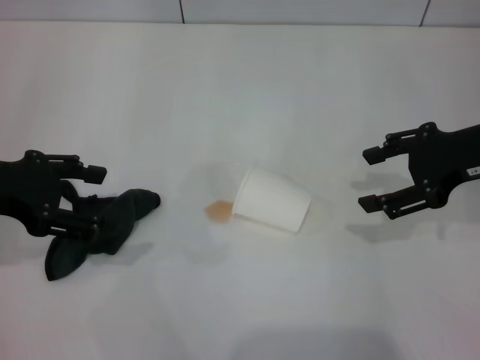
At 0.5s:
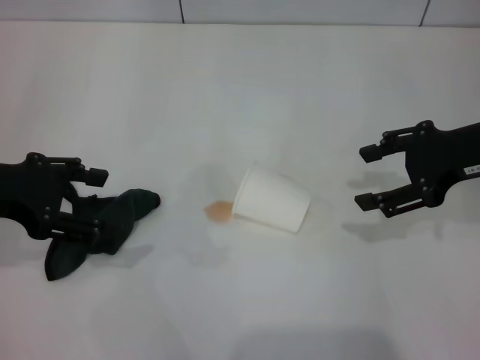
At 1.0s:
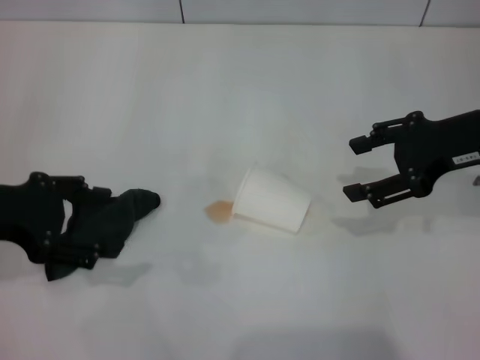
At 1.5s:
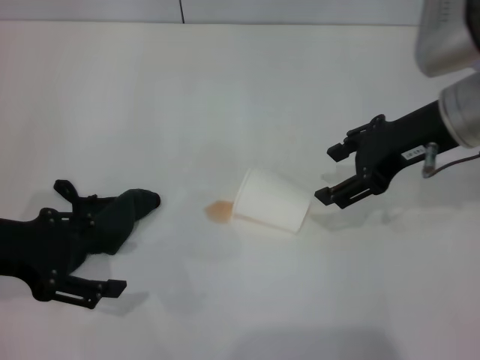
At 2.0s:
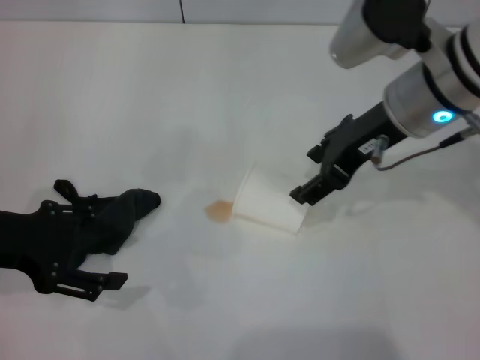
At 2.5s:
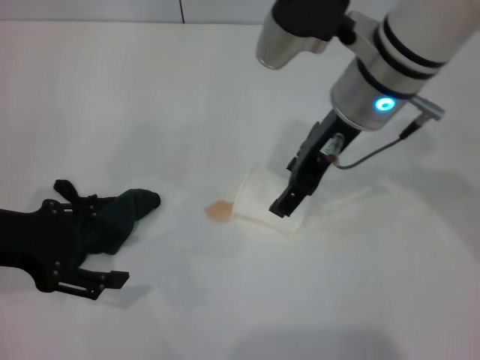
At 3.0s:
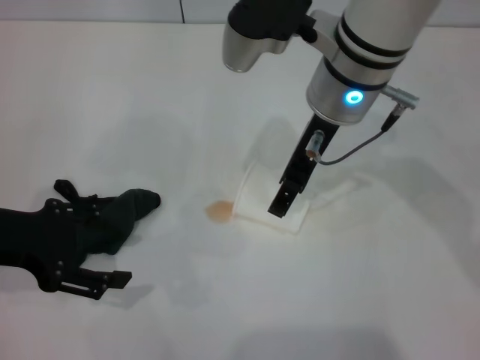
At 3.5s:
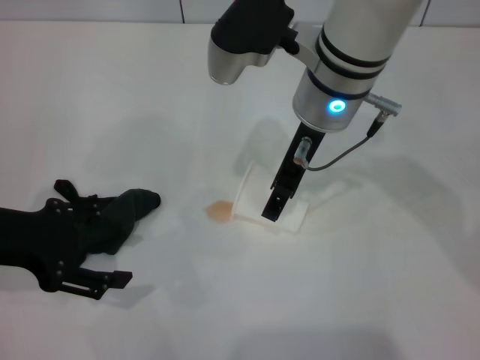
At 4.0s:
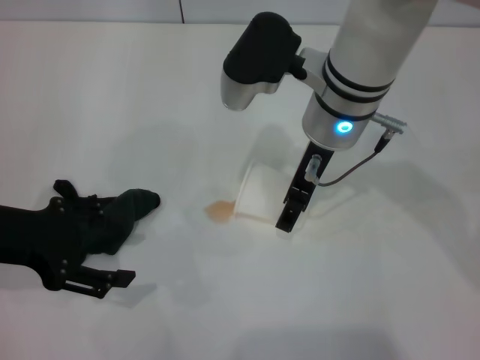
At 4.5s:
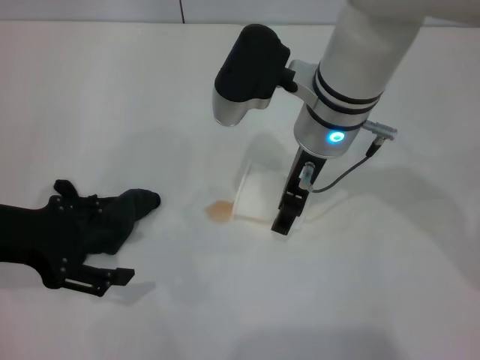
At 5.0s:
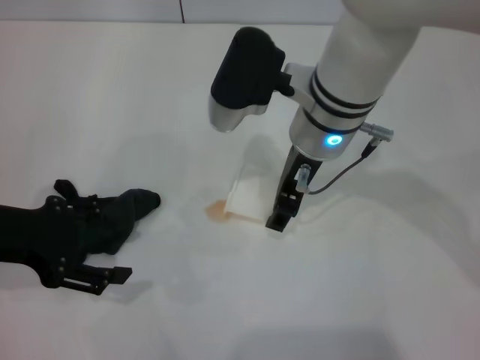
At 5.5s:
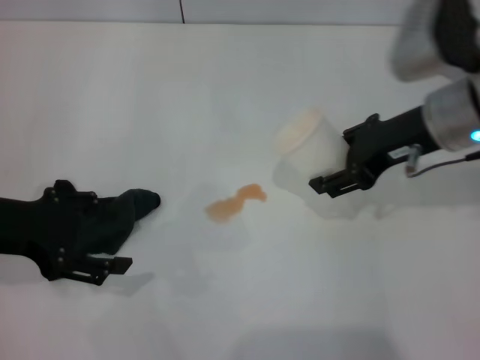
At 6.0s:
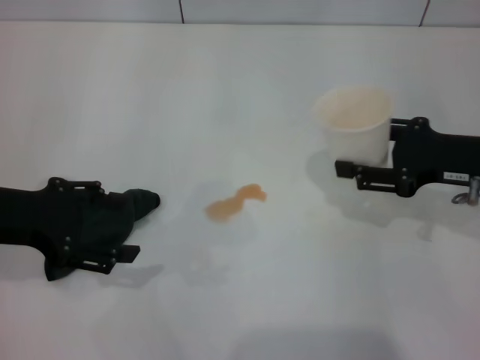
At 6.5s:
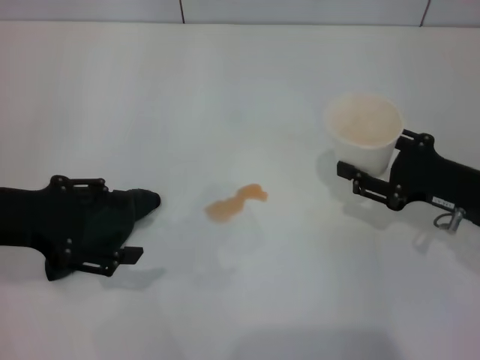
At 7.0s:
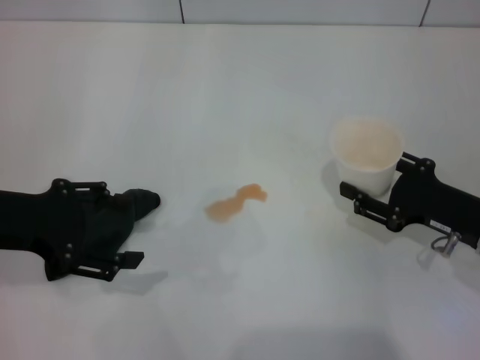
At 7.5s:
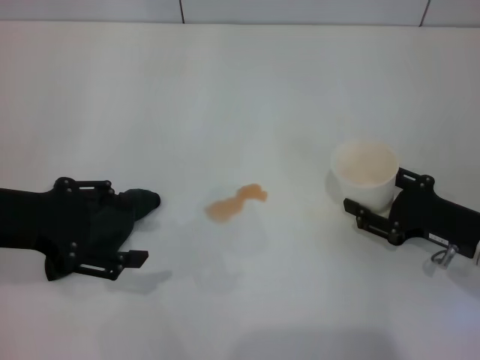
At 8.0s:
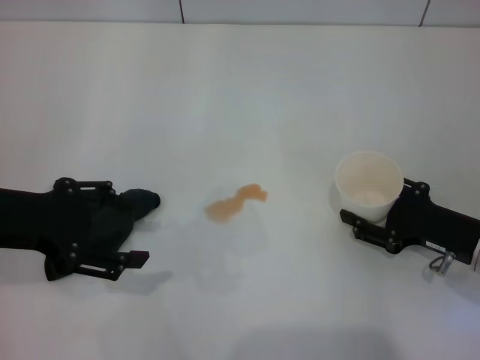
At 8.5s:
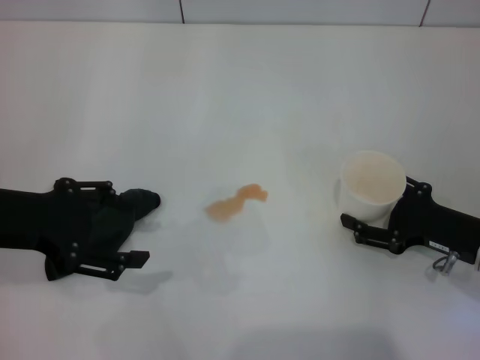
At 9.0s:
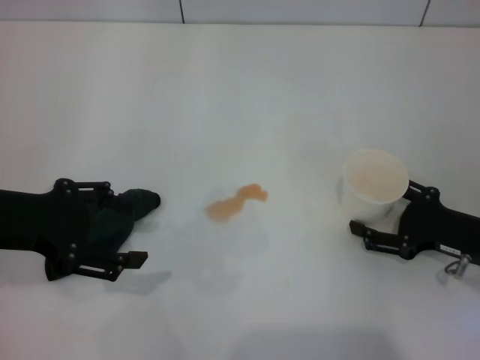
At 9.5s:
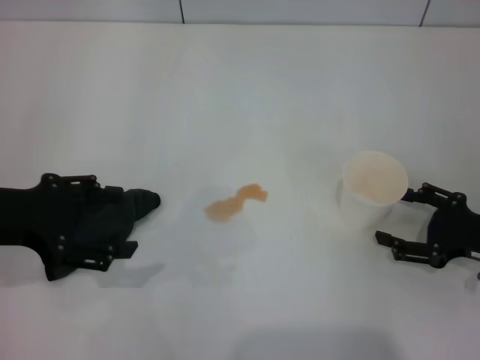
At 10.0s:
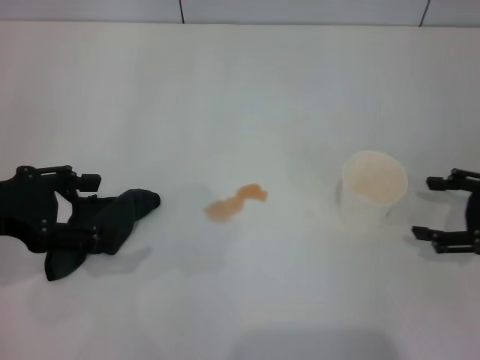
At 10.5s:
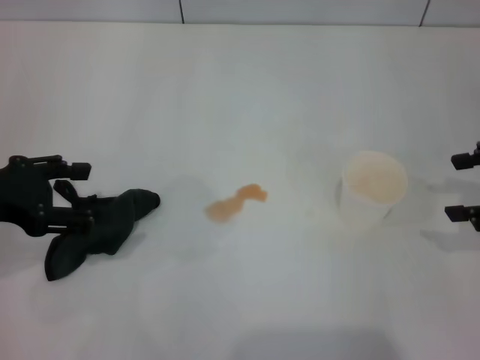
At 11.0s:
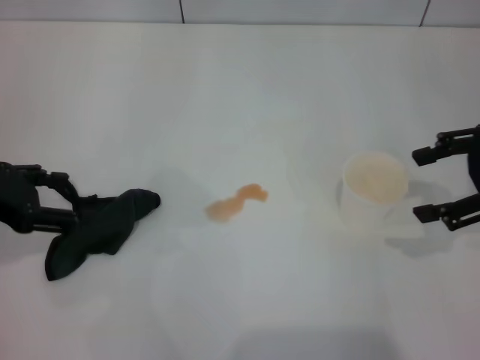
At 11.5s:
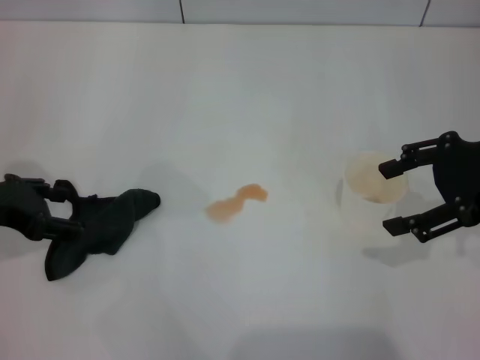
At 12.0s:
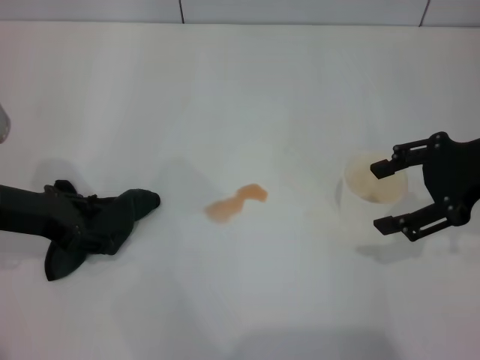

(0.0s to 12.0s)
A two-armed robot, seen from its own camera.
Step, 0.0s - 4.5s: Grasp the paper cup with the right gripper.
Step, 5.0s - 9.0s: Stand the paper cup upright with the right gripper.
0.0s - 2.0s: The right gripper travels to the left by some 10 cm.
2.0s - 4.0s: The right gripper shifts roughly 10 cm to the left.
4.0s - 6.0s: The right gripper heads to the right, covering roughly 20 cm, and closes.
6.0s - 8.0s: The right gripper heads downward, covering roughly 10 cm.
8.0s - 10.0s: The right gripper moves upward and to the right, approximately 10 cm, and opens up.
10.0s - 12.0s: The left gripper shifts by about 5 cm. The right gripper moves upward and to the left, about 15 cm.

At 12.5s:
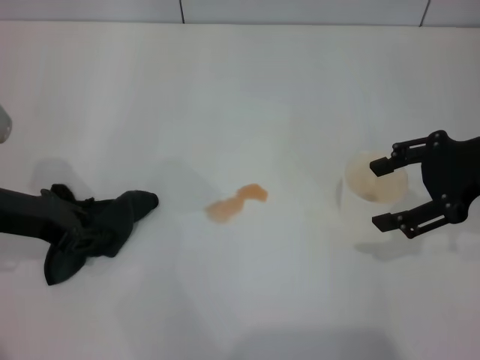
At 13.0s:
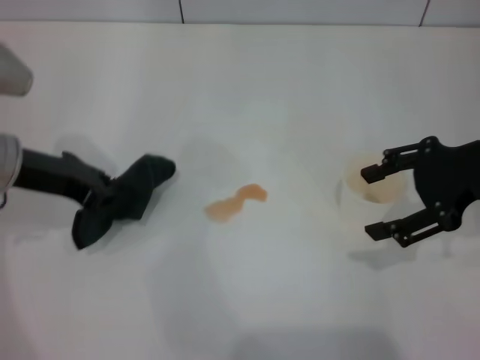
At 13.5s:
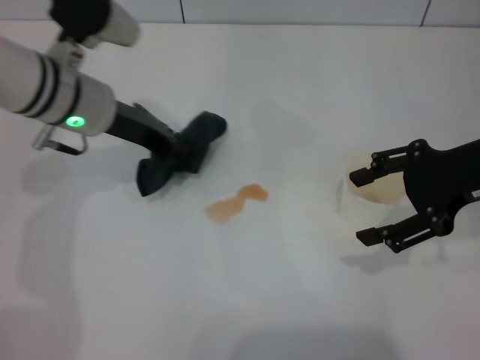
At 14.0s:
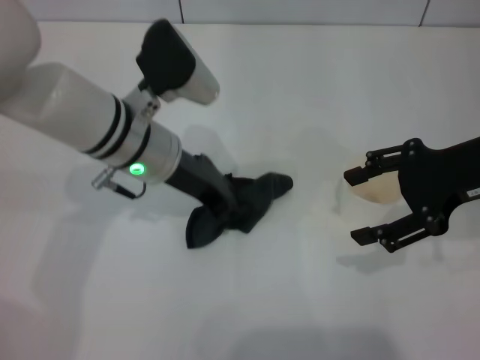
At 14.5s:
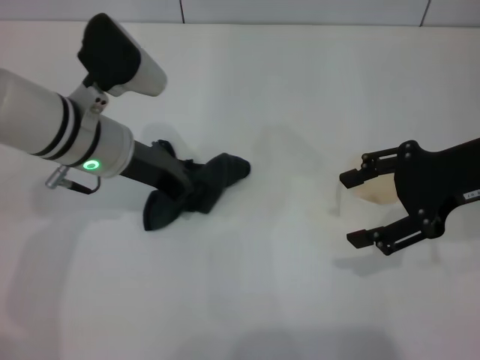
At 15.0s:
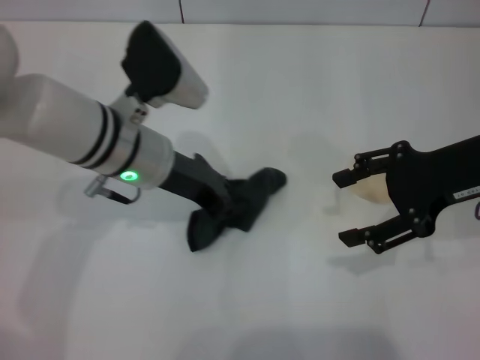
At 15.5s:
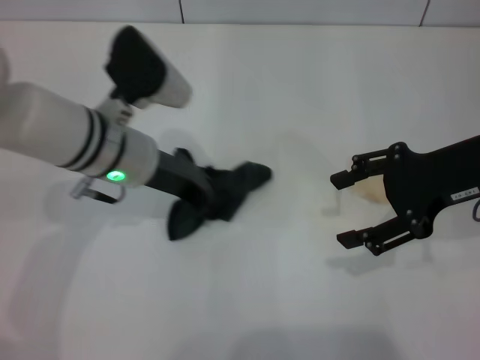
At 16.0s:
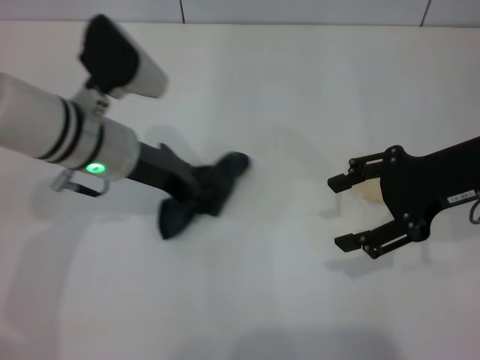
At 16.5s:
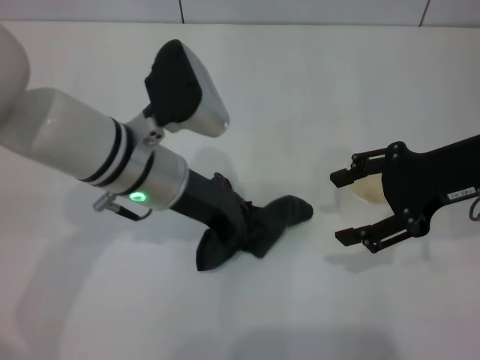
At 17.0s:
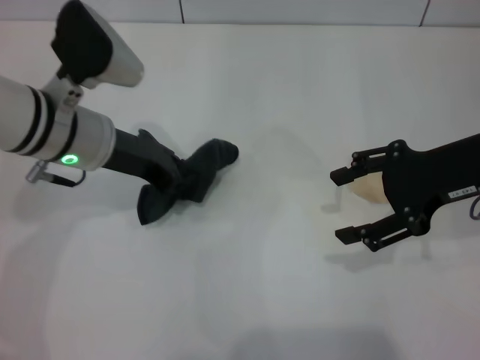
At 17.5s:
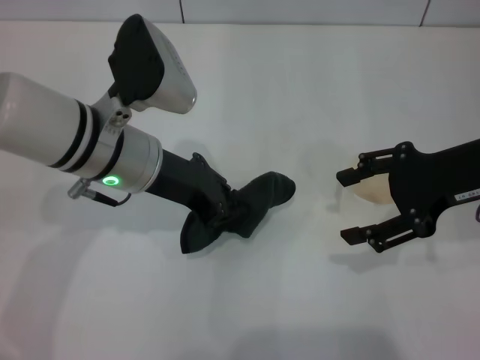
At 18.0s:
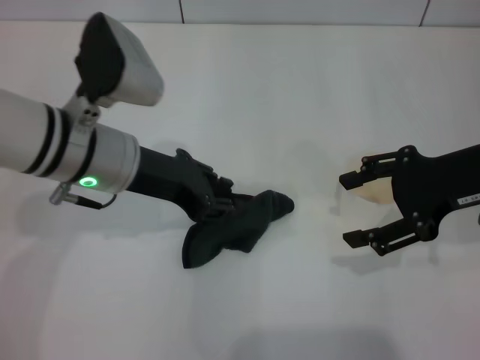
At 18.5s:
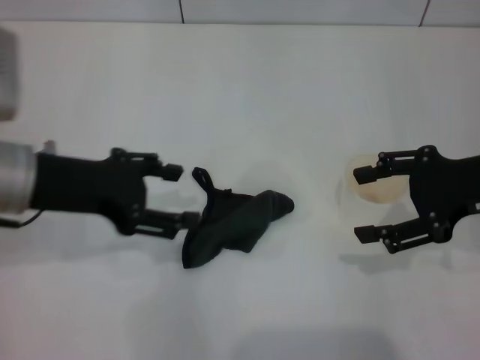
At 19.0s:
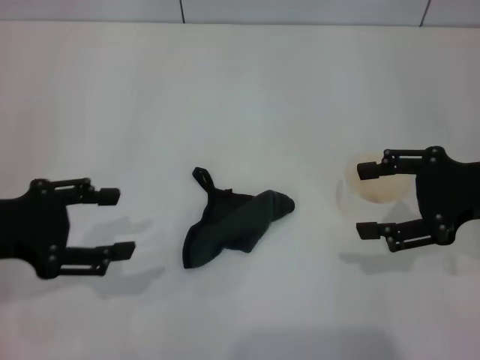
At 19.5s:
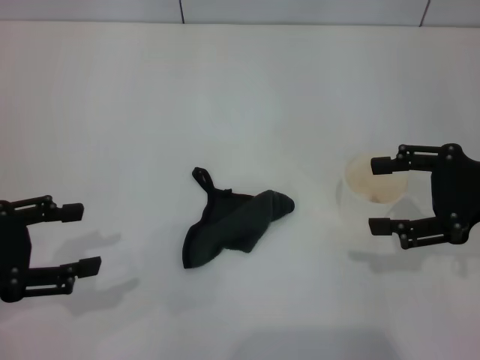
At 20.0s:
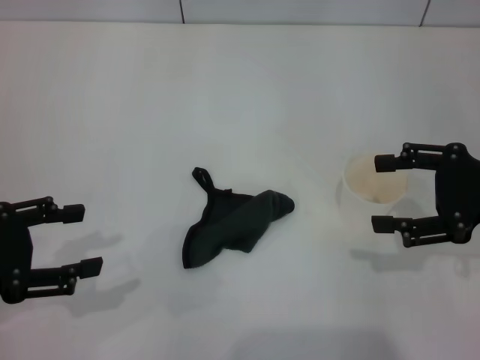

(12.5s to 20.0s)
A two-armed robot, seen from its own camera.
Step, 13.0s - 17.0s: Wipe the stains off the table with the left gripper.
Step, 17.5s - 18.0s: Place the rag on the table with the left gripper.
12.5s - 14.5s: The left gripper goes approximately 15 cm to the right and forward, and closes up.
14.5s - 16.5s: The left gripper ends up roughly 5 cm from where it was.
18.0s - 20.0s: The right gripper ends up some 5 cm from where it was. Meanwhile the left gripper heads to the left and backward, covering about 20 cm, and opens its fingers.

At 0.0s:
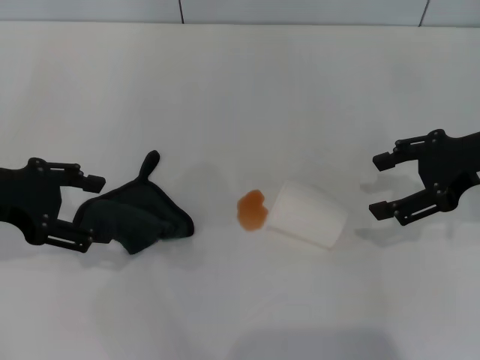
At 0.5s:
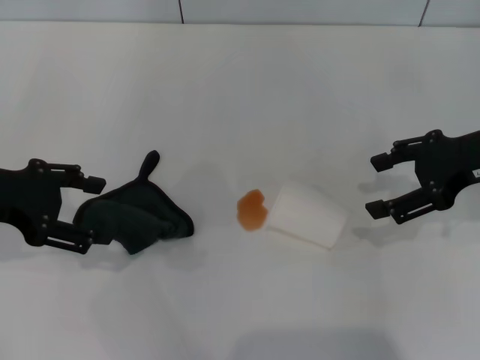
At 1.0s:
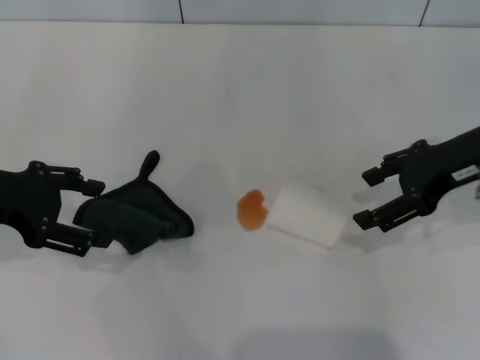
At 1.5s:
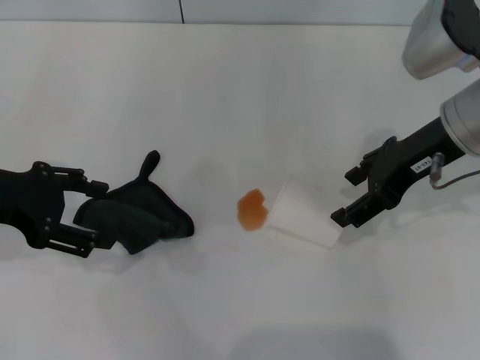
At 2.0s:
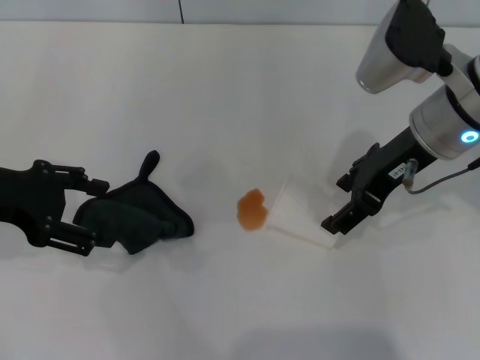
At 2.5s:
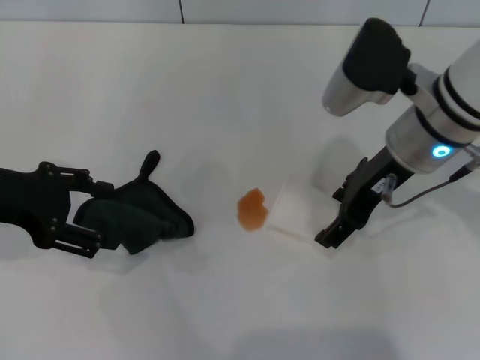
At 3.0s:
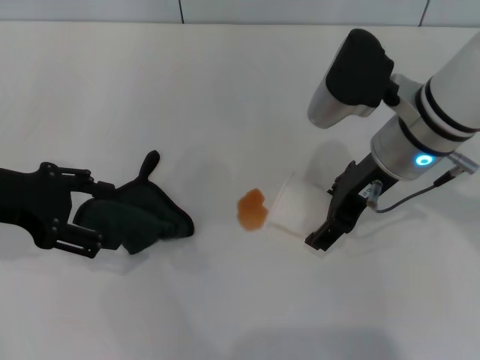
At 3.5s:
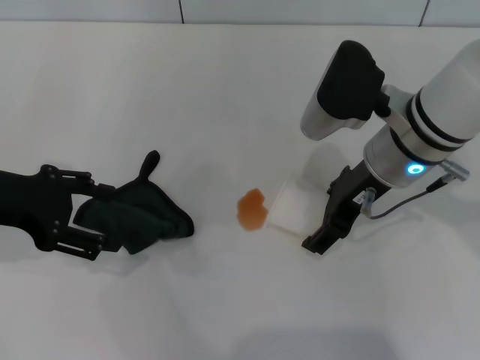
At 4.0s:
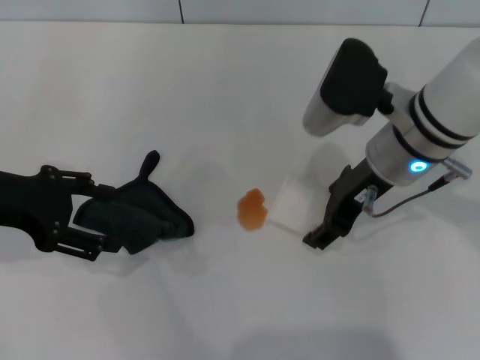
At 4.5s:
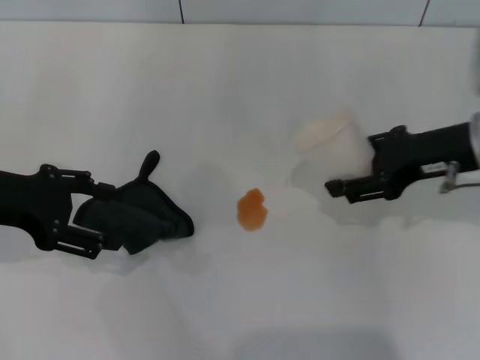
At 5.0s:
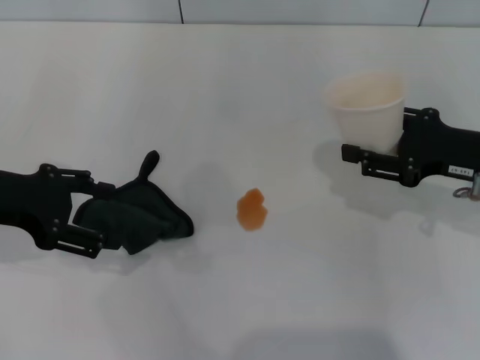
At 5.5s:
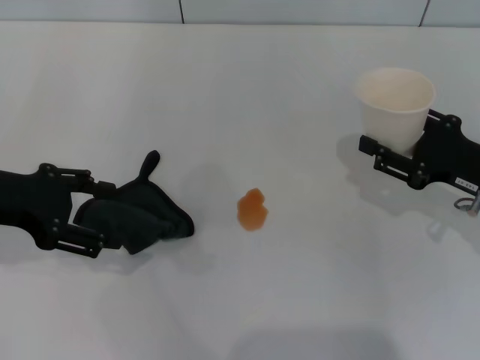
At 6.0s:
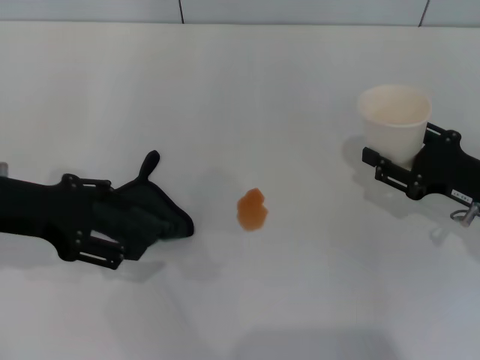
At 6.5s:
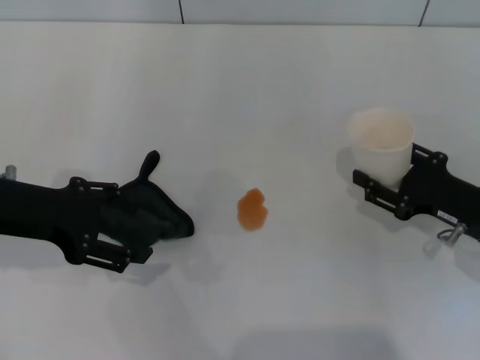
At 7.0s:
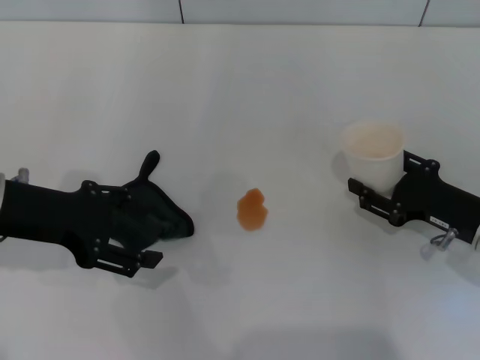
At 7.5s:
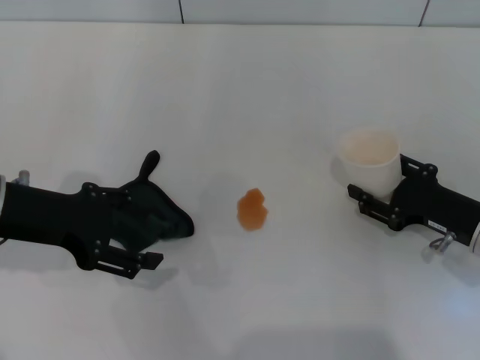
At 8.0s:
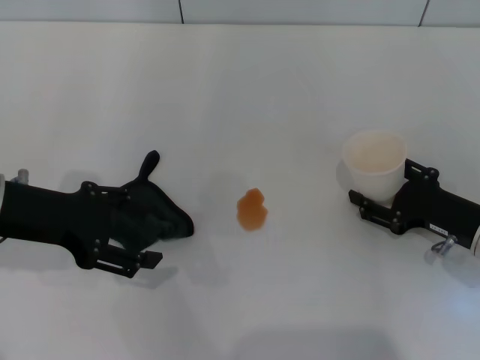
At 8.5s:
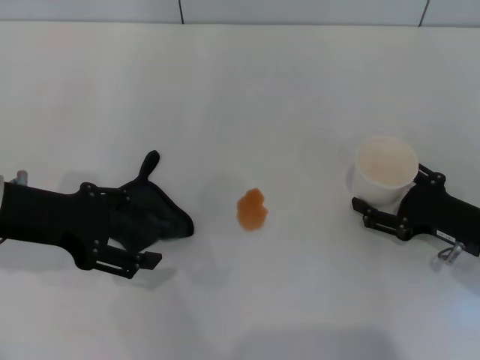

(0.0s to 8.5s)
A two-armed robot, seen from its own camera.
Step, 0.0s - 3.5s: Grasp the paper cup with the right gripper.
0.0s - 2.0s: The right gripper heads to the left, covering some 10 cm.
2.0s - 4.0s: The right gripper closes its fingers.
4.0s - 6.5s: The right gripper heads to the right, downward and backward, covering about 20 cm, and closes its fingers.
6.5s - 8.5s: The right gripper opens its fingers.
